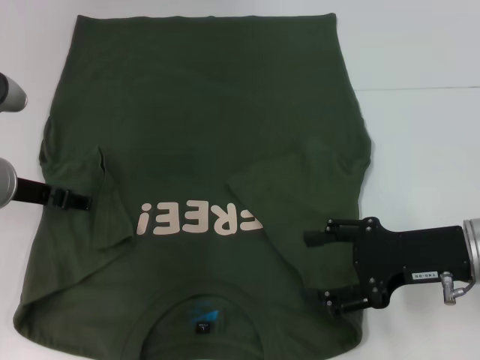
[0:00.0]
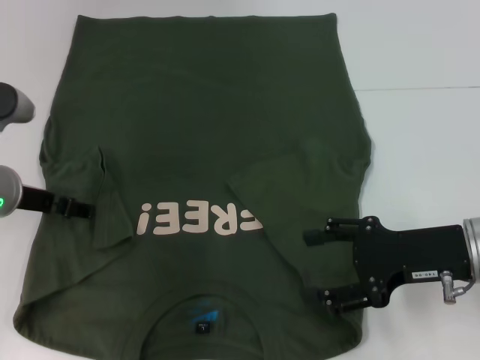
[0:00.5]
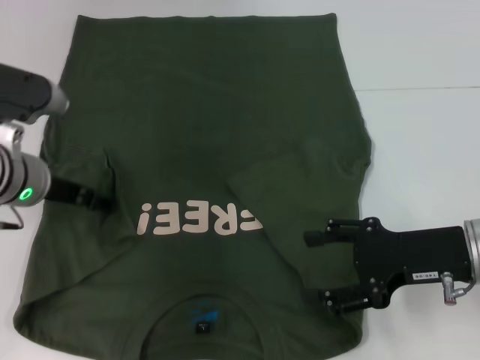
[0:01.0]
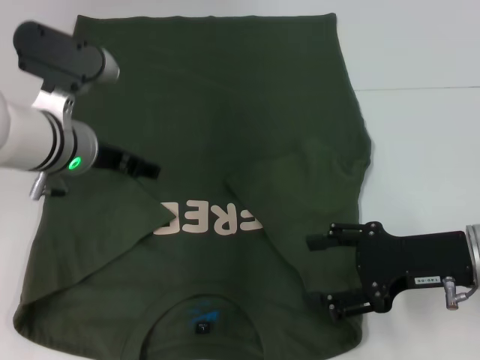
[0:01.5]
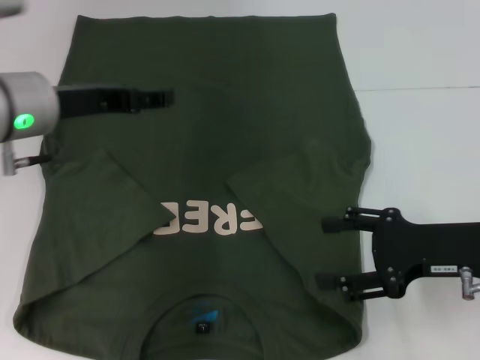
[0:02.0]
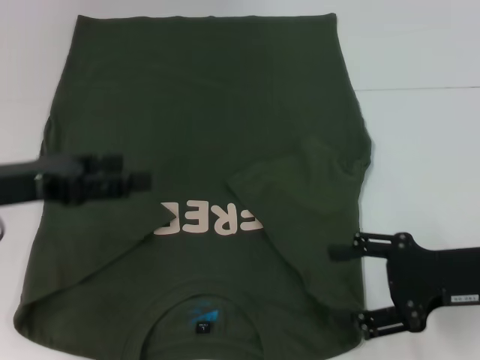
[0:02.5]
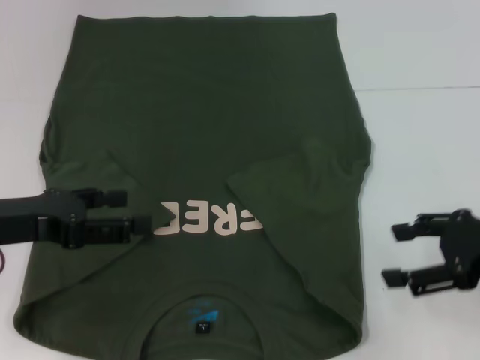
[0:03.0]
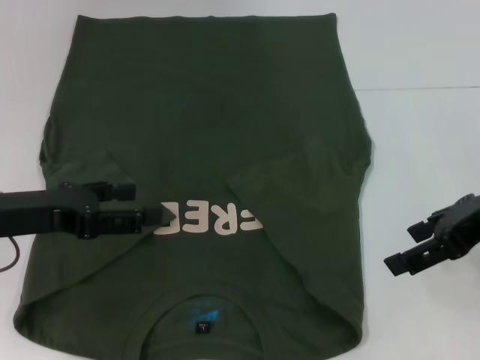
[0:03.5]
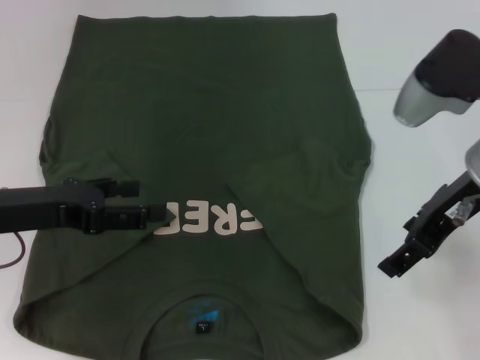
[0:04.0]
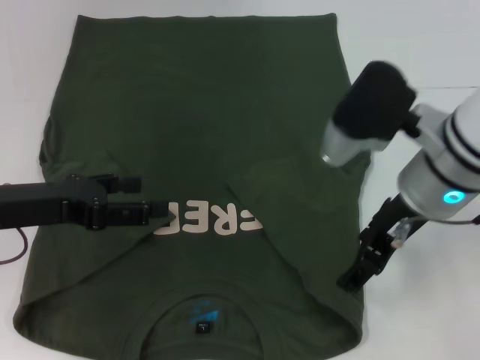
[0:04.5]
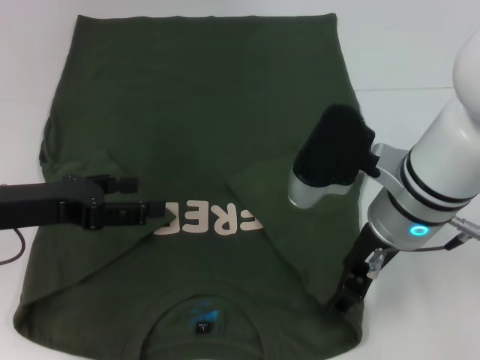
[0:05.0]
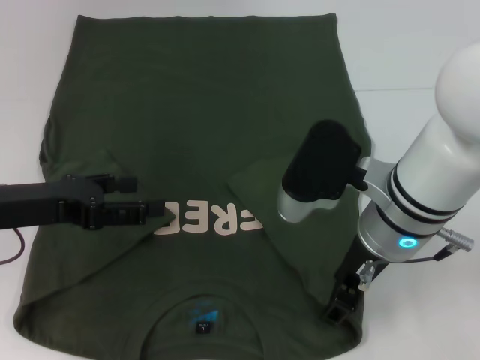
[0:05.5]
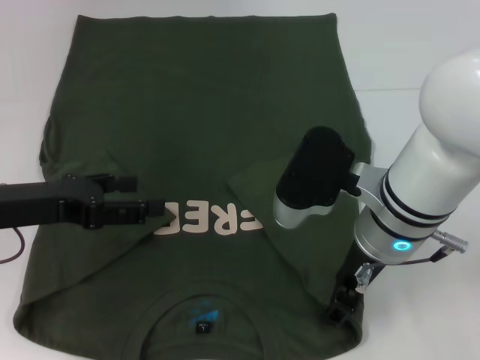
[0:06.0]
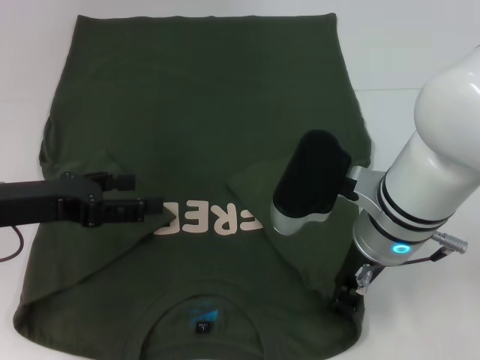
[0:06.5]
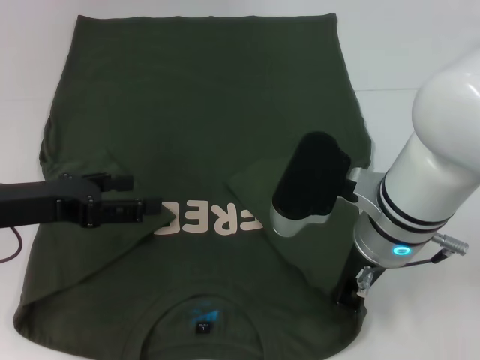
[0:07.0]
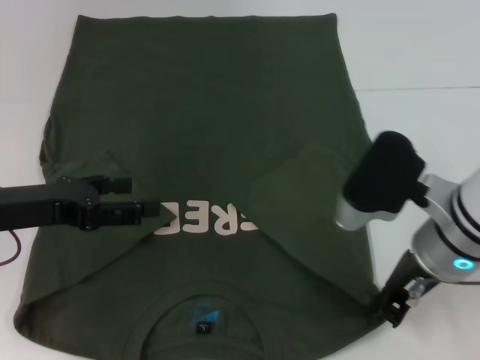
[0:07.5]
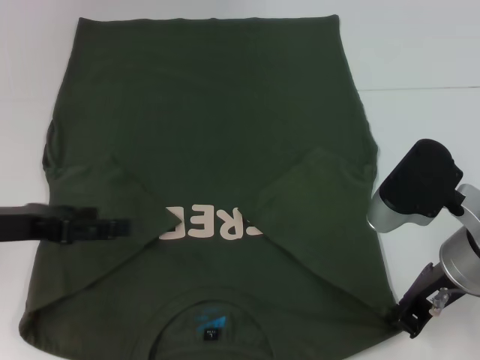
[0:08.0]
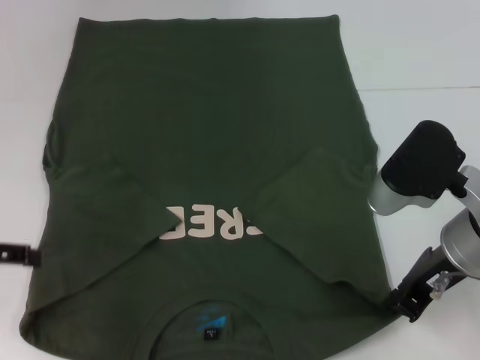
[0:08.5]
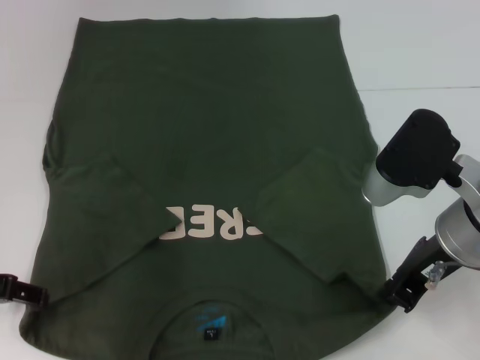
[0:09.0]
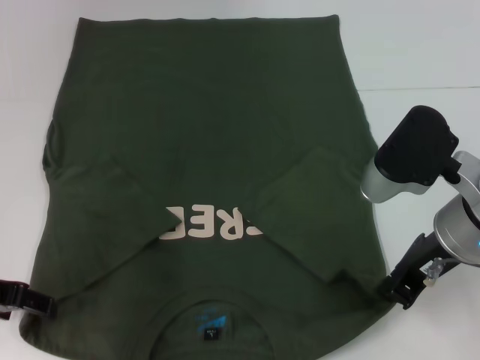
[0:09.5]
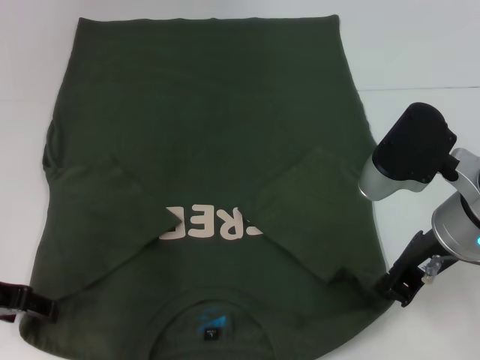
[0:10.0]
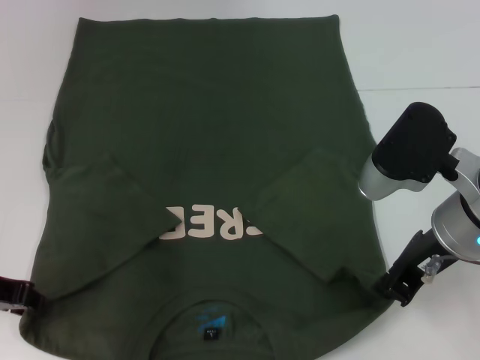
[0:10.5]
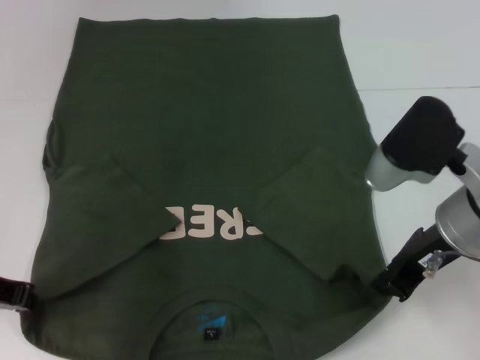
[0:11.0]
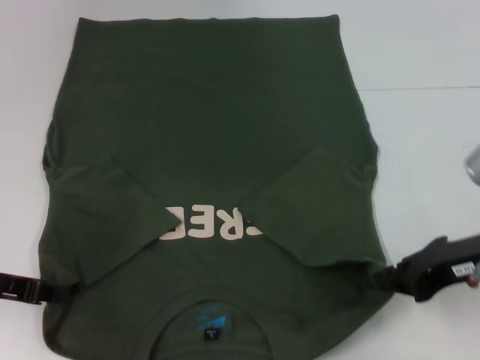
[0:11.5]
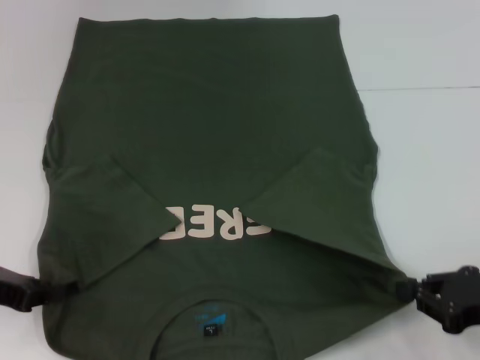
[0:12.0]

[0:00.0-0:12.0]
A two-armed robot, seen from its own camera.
Step, 0:00.0 to 0:08.0: Grab the bottom right corner with your right hand.
Step, 0:08.5 to 0:11.0: Grab the bottom left corner with your left hand.
0:00.0 to 0:02.0: The left gripper shifts some 5 cm upward.
0:02.0 to 0:04.0: The left gripper heads backward and to the left, covering some 10 cm. Meanwhile the right gripper moves upward and to the left, roughly 10 cm.
0:04.0 to 0:06.0: The right gripper moves to the left and downward, roughly 10 cm.
0:06.0 to 0:08.0: The right gripper is displaced to the right by some 10 cm, and closes up.
0:10.0 to 0:12.0: The right gripper heads to the right, downward and backward, covering about 15 cm. Meanwhile the left gripper closes.

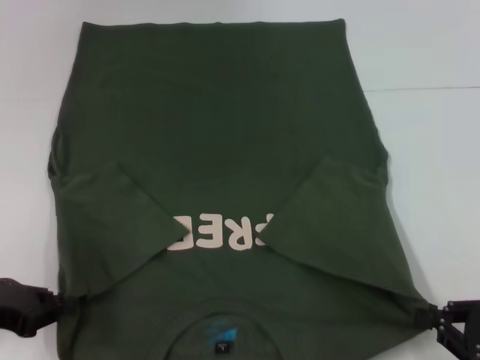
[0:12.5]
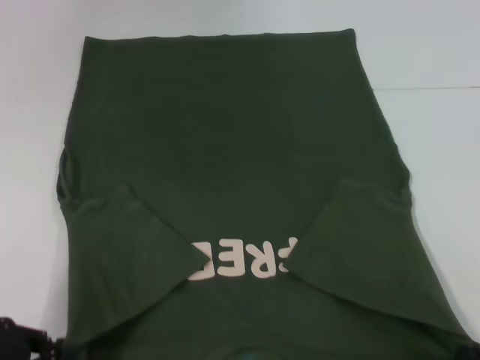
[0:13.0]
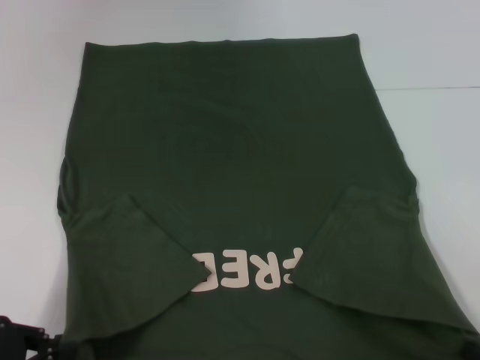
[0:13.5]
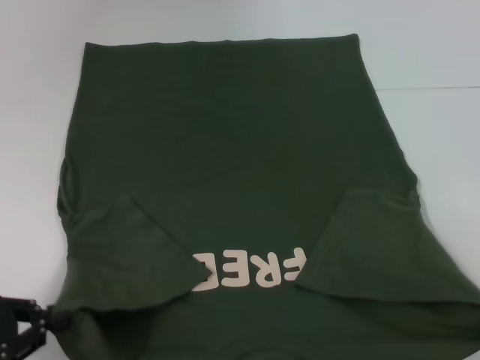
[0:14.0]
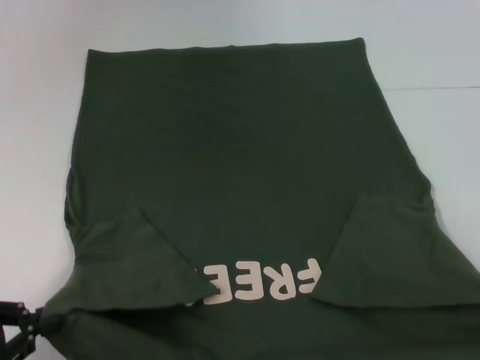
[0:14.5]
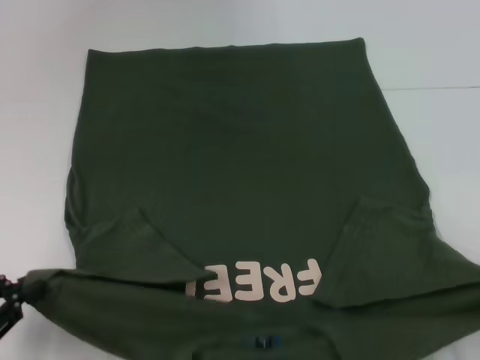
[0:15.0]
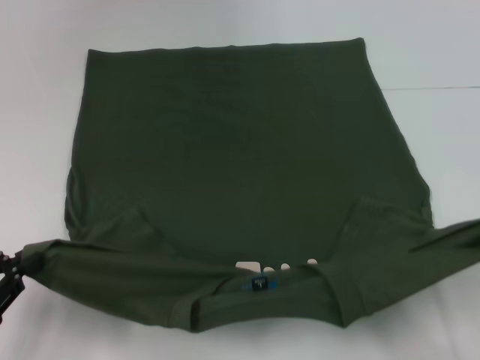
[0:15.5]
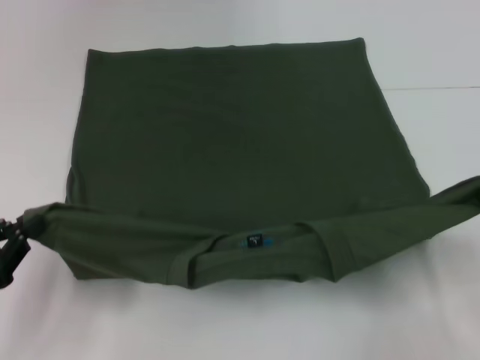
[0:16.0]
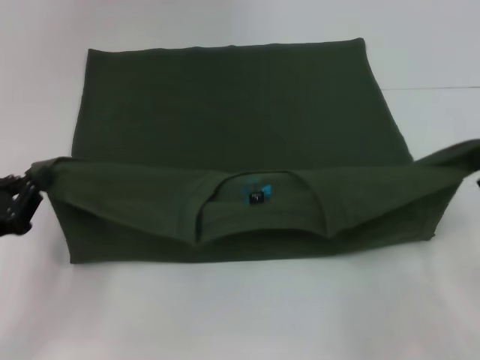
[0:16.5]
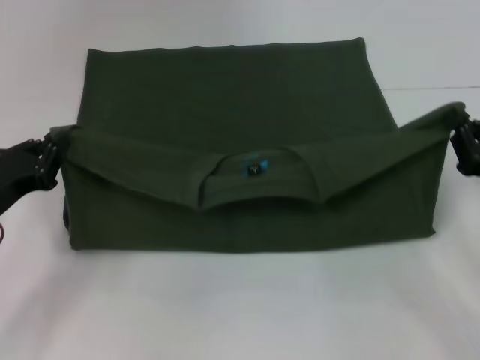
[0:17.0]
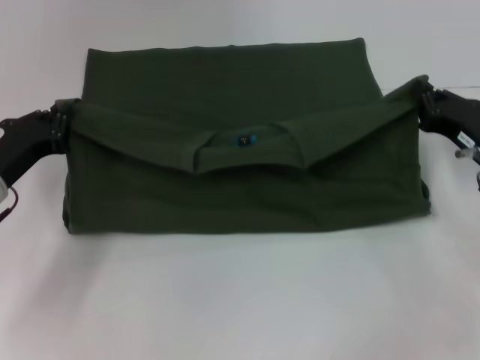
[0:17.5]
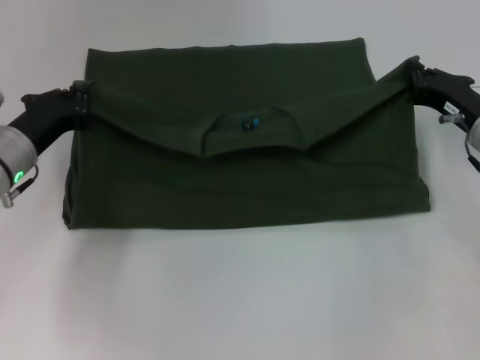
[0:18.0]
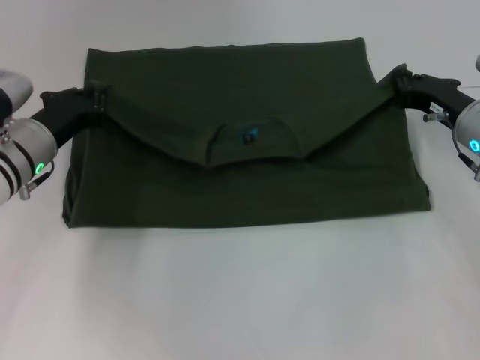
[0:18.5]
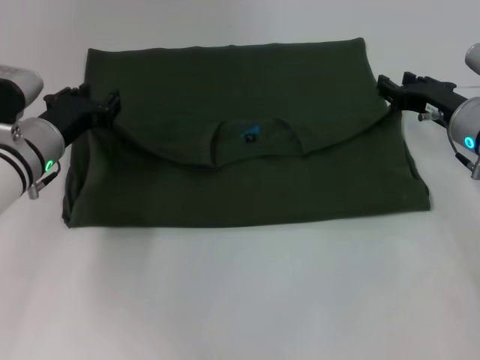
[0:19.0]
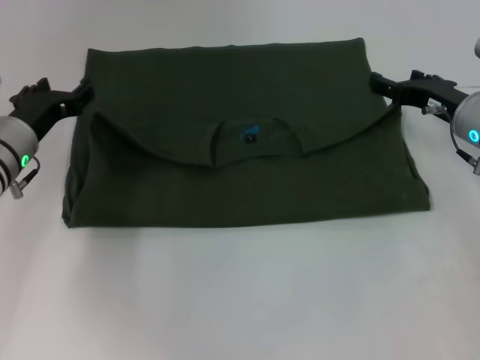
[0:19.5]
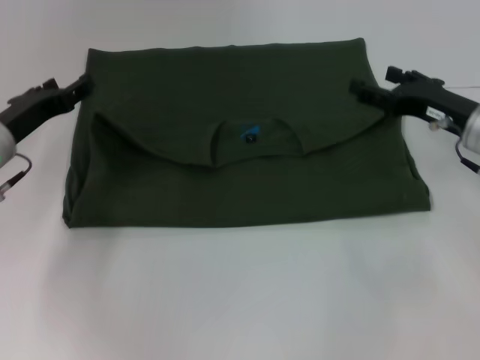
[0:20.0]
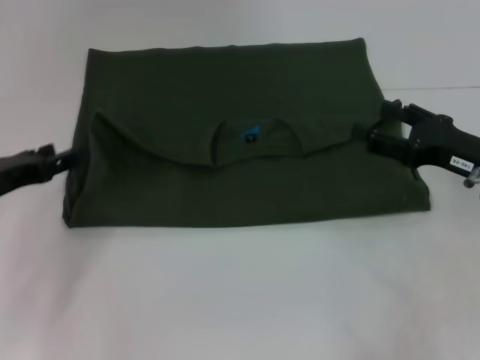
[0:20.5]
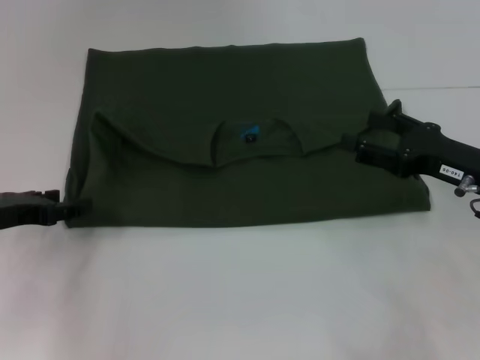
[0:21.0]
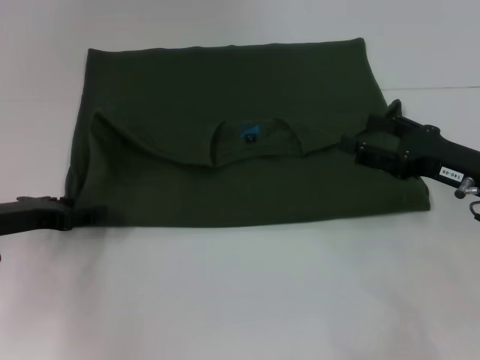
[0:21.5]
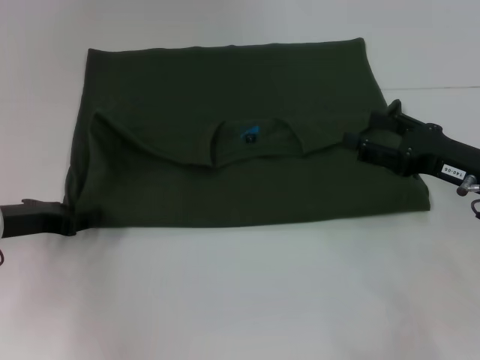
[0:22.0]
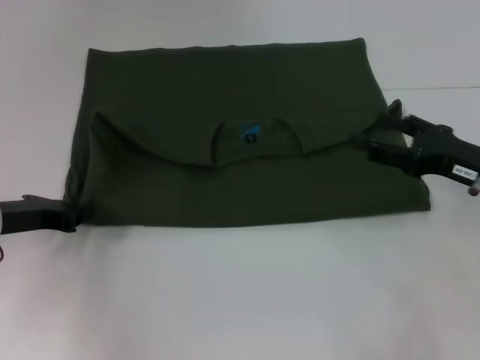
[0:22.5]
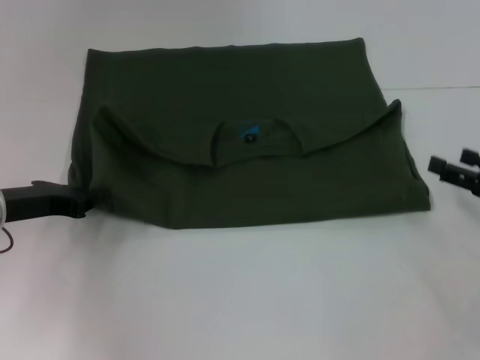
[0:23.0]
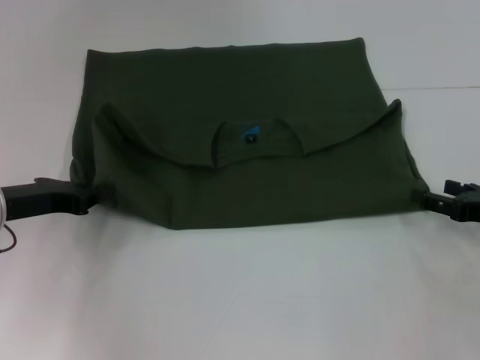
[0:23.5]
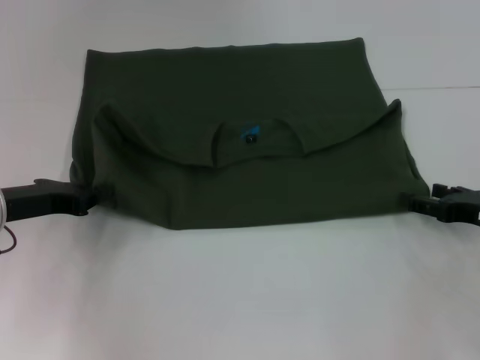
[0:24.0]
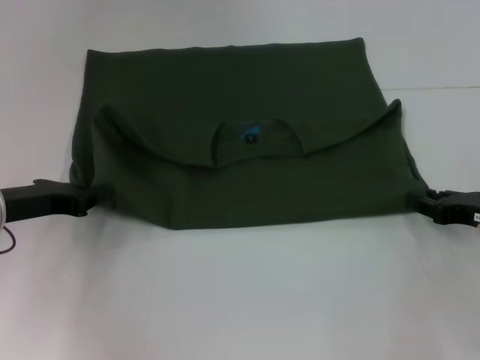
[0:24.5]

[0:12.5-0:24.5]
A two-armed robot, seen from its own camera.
Step, 0:12.5 to 0:19.0: Fold the clothes with your left hand.
Step, 0:12.5 to 0:19.0: Fold the clothes with your right hand.
0:12.5 to 0:14.5: The grippers both shift backward by about 10 cm.
0:14.5 to 0:16.5: The right gripper is displaced forward by some 15 cm, while the left gripper shifts roughly 5 cm forward.
0:16.5 to 0:18.5: The left gripper moves forward and to the right, some 15 cm. The right gripper is displaced forward by about 20 cm.
0:18.5 to 0:20.5: The right gripper is displaced backward by roughly 10 cm, and opens up, while the left gripper is displaced to the left and backward by approximately 10 cm, and opens up.
0:20.5 to 0:22.5: The left gripper closes its fingers.
0:22.5 to 0:24.5: The right gripper changes place by some 5 cm, and closes its fingers.

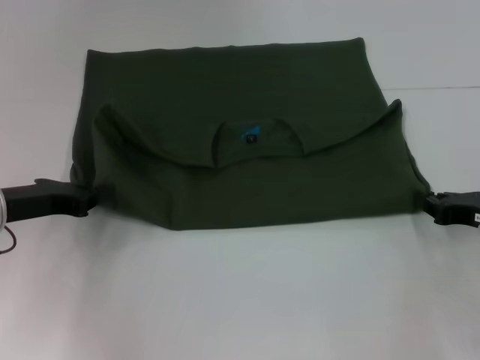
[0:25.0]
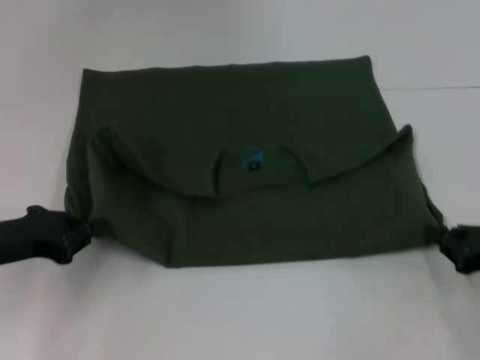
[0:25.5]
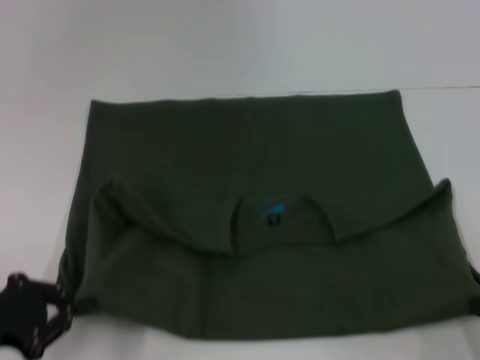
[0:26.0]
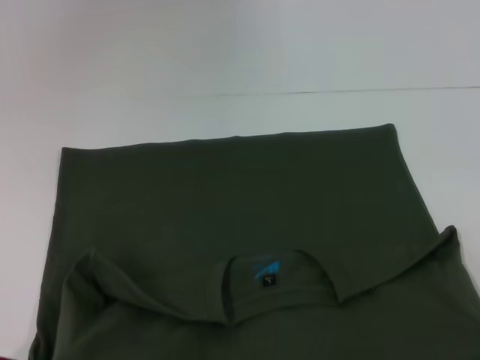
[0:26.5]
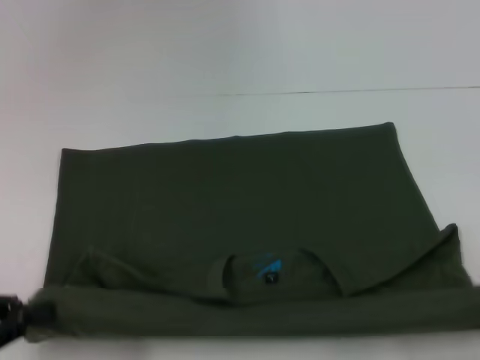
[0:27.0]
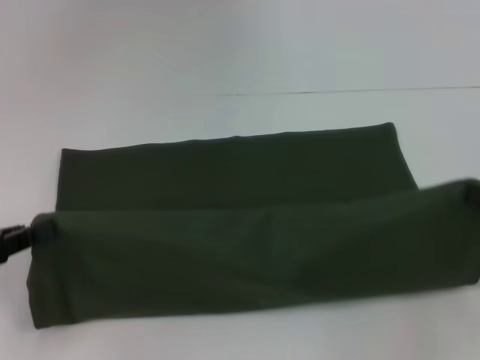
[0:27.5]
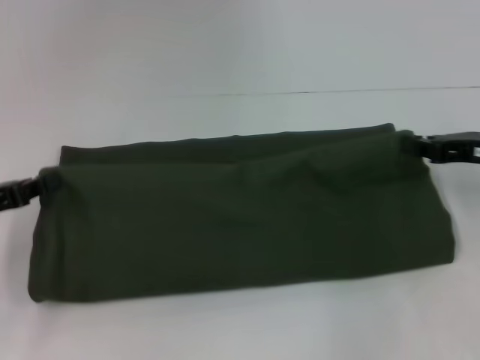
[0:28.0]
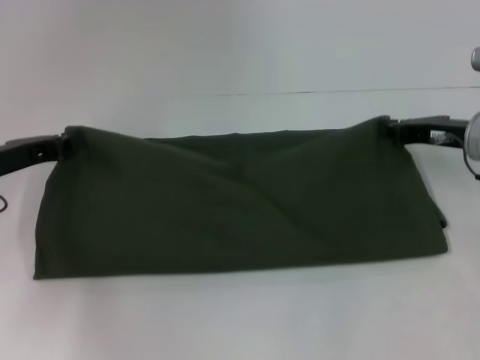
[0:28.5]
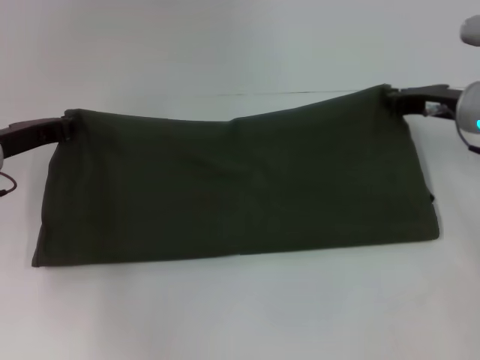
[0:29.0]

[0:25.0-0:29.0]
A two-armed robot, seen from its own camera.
0:25.0 to 0:27.0: The right gripper heads backward and to the right, covering some 20 cm, while the left gripper is displaced backward and to the left by some 15 cm.
0:27.0 to 0:29.0: The left gripper travels forward by some 20 cm; the right gripper heads forward and to the left, covering approximately 30 cm.
